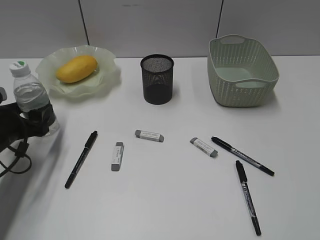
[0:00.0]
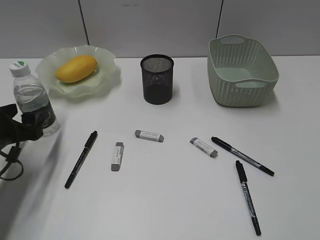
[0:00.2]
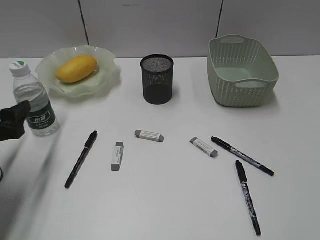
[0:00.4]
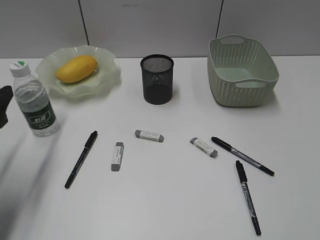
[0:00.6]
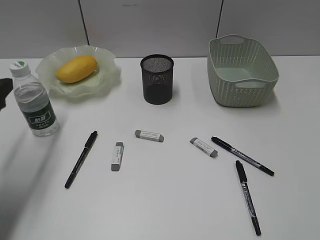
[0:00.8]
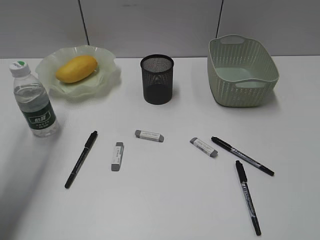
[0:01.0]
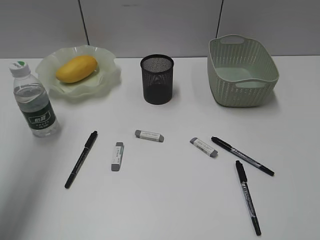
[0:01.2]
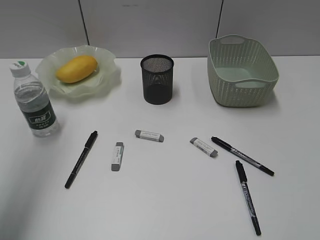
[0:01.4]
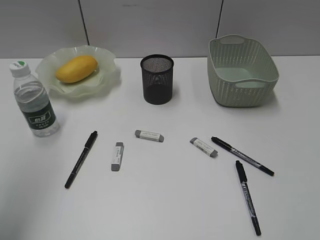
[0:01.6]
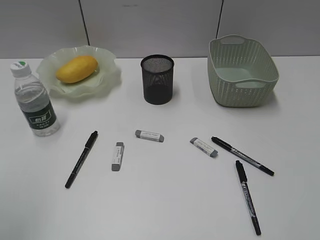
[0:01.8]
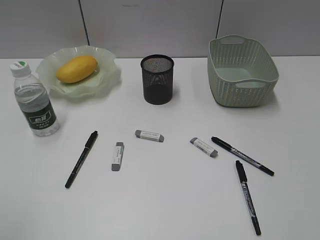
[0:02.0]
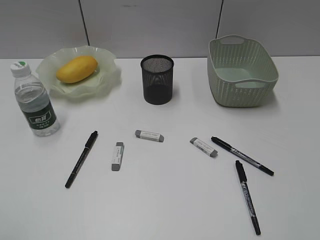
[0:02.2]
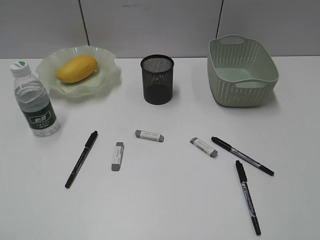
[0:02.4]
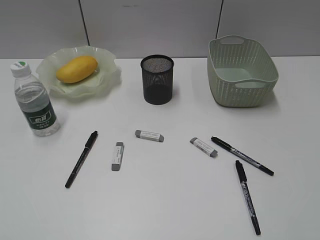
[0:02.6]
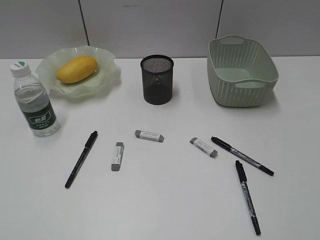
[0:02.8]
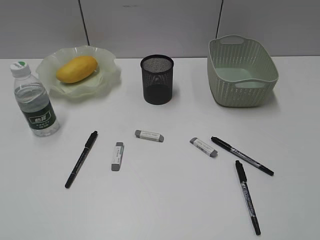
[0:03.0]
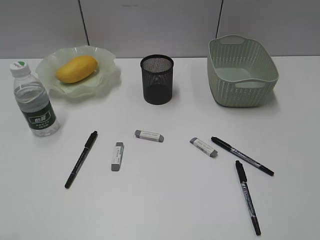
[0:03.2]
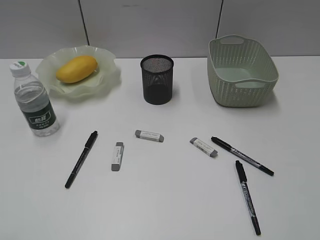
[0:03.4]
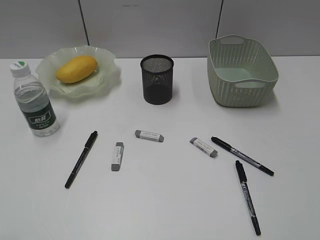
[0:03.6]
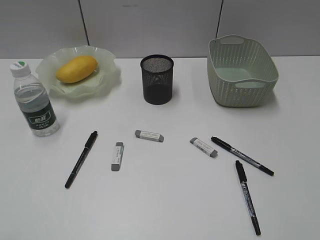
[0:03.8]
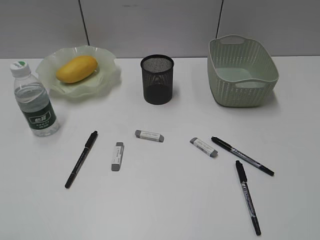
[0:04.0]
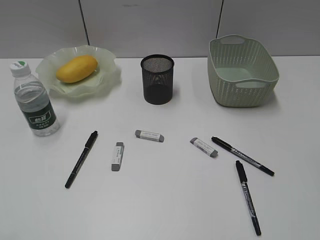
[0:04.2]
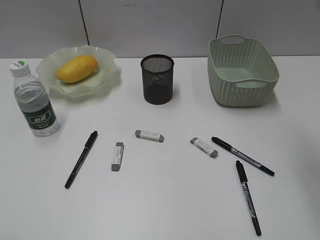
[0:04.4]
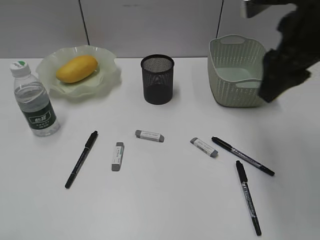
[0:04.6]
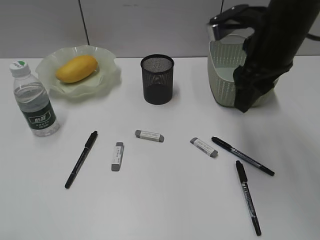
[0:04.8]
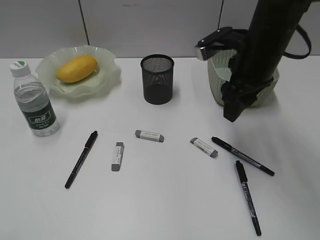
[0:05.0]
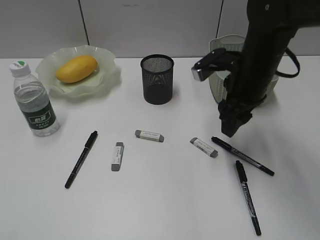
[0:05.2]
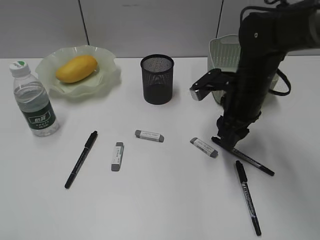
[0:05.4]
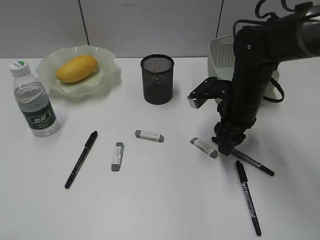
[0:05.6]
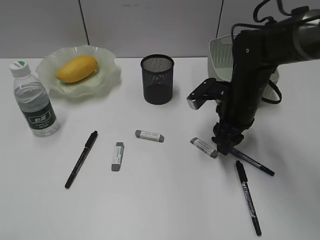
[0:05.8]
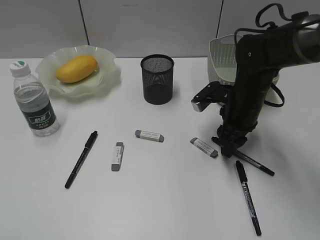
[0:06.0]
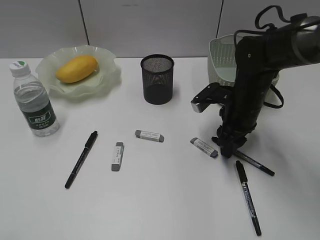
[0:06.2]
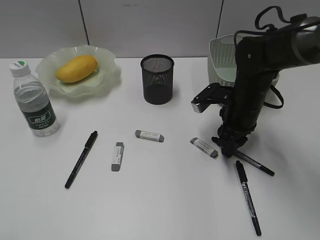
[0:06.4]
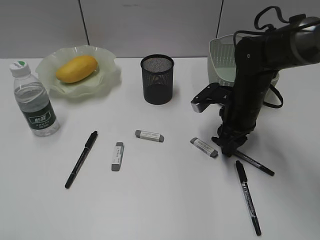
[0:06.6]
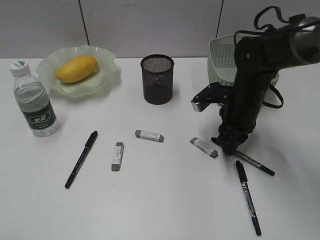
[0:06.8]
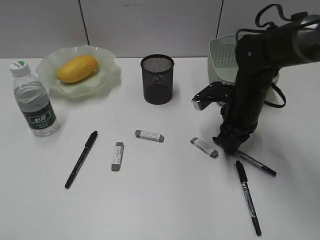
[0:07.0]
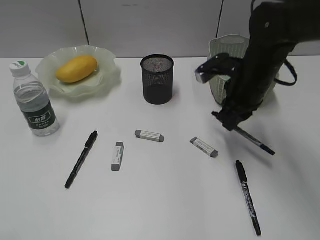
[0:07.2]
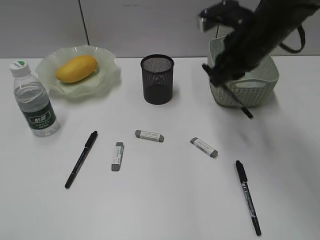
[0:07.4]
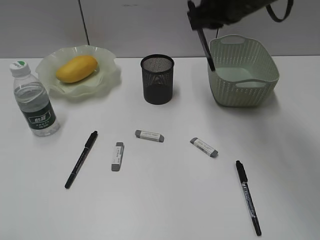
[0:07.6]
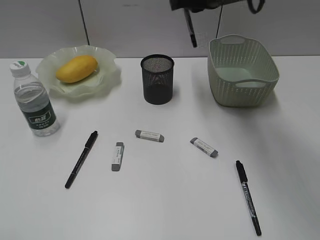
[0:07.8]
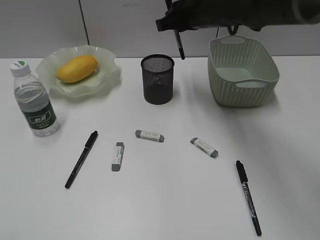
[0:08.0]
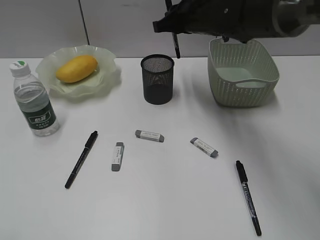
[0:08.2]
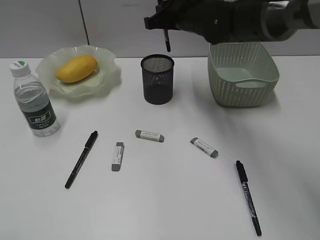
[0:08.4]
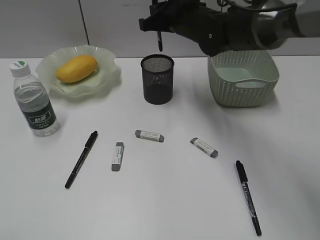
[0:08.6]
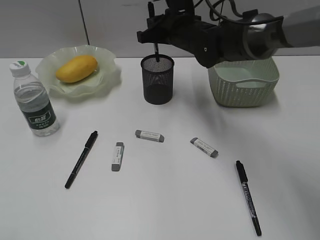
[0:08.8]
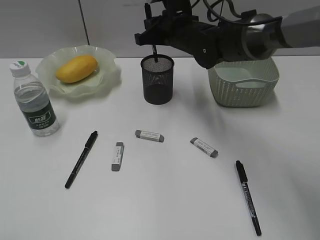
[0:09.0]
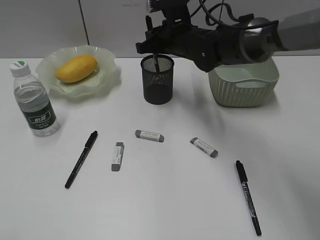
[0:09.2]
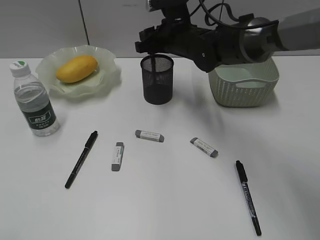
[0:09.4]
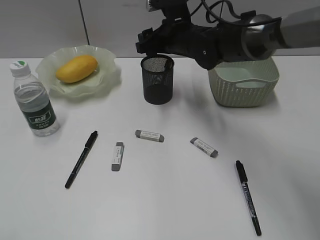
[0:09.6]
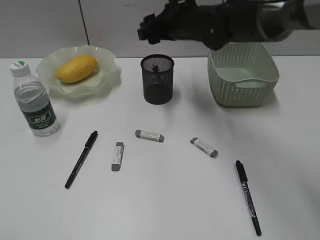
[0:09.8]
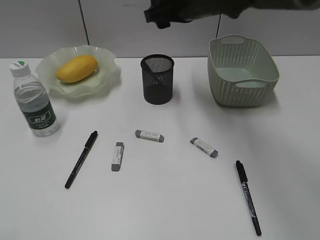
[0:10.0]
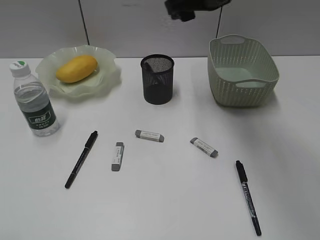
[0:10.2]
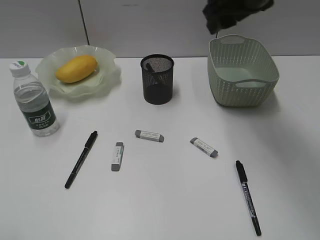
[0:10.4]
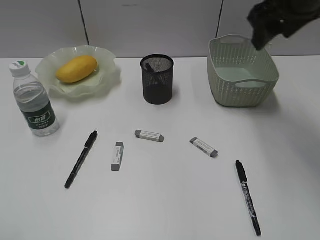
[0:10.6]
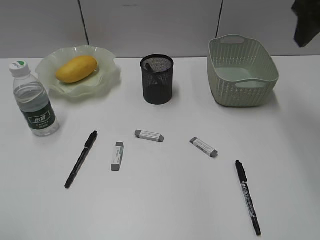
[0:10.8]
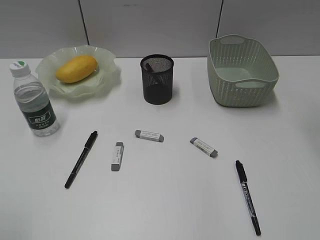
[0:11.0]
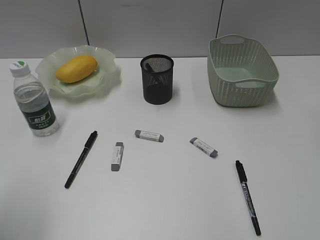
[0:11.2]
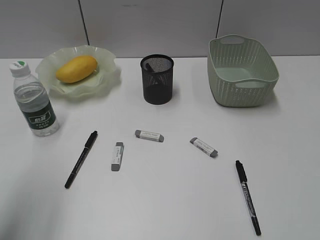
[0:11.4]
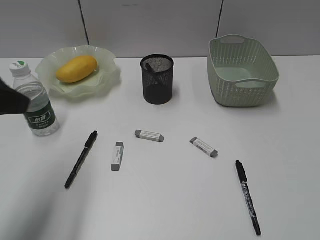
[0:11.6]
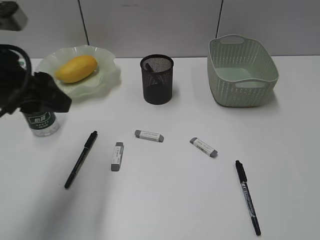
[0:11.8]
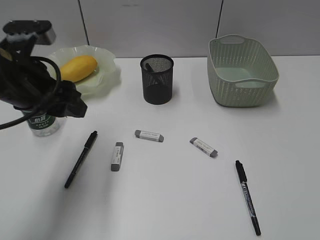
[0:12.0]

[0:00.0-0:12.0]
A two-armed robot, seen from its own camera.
Step, 0.4 to 6.8 s: Grasp the black pen with right gripper.
Step, 7.0 to 9.6 s: Place the black pen in pen holder with right gripper.
0.0 to 1.6 s: The left gripper is displaced upward by some 30 cm.
1.6 to 3.0 s: The left gripper heads backward and downward, covering approximately 25 cm.
3.0 to 4.4 s: The right gripper is displaced forward by some 20 cm.
4.4 to 6.0 s: The right gripper moves downward and forward, roughly 25 cm.
6.0 to 7.6 s: The right gripper travels upward by approximately 20 cm, and closes its fingers.
7.6 to 9.0 s: The right gripper goes roughly 15 cm downward, to the left and forward.
9.0 to 10.4 s: The right gripper moves upward, to the right and backward, roughly 20 cm, and opens its fingers.
10.4 to 12.0 s: The left gripper is displaced forward and to the right by approximately 30 cm. The right gripper shifts some 35 cm backward and to the right.

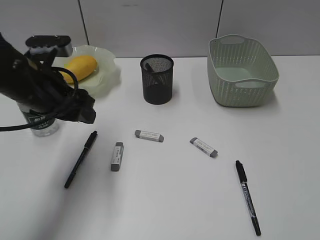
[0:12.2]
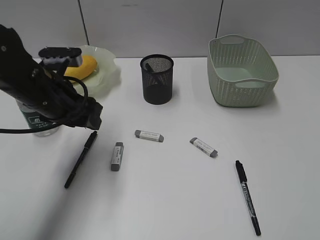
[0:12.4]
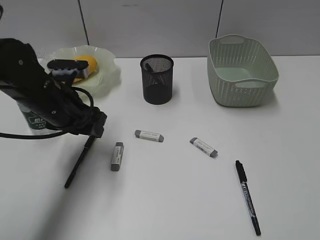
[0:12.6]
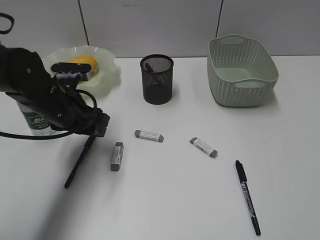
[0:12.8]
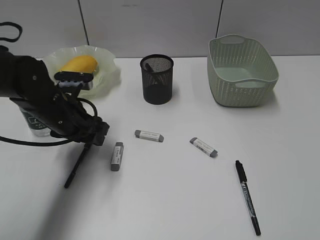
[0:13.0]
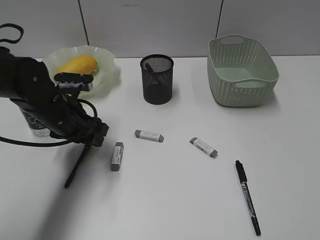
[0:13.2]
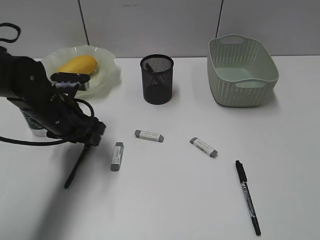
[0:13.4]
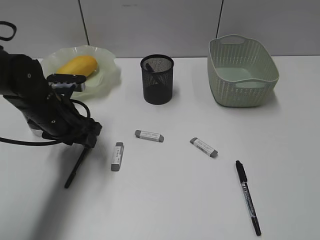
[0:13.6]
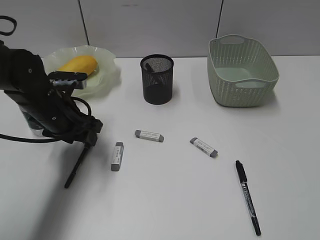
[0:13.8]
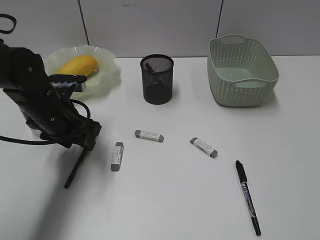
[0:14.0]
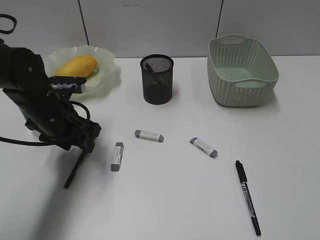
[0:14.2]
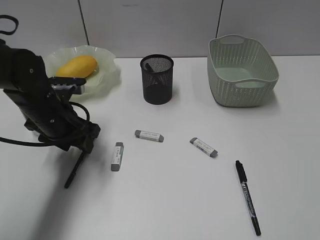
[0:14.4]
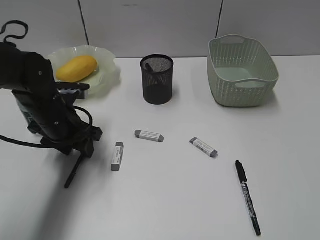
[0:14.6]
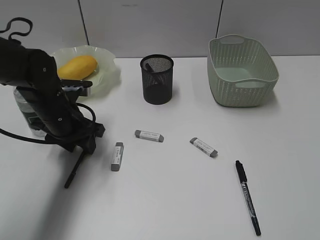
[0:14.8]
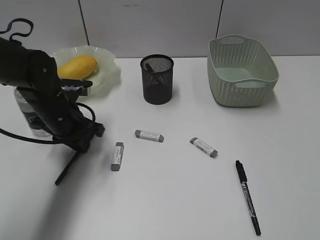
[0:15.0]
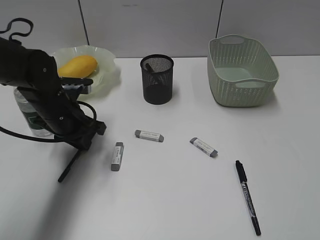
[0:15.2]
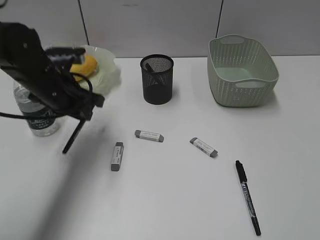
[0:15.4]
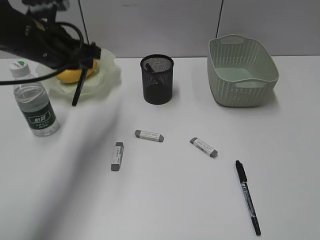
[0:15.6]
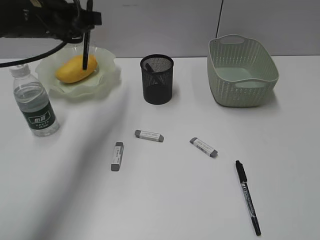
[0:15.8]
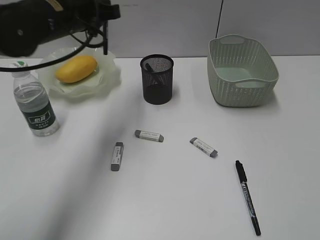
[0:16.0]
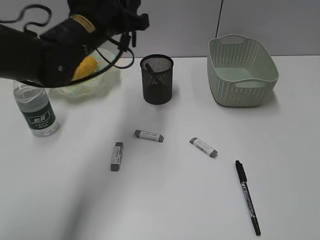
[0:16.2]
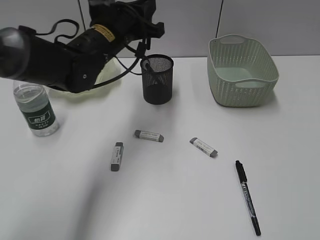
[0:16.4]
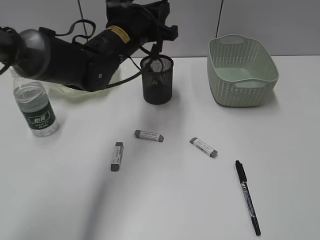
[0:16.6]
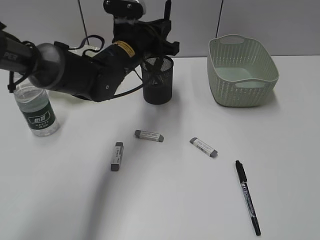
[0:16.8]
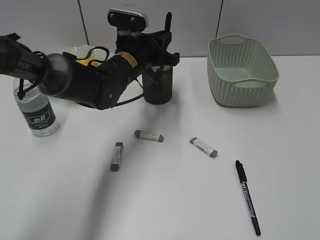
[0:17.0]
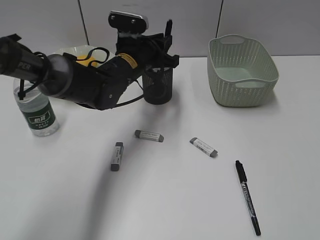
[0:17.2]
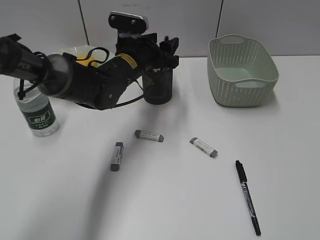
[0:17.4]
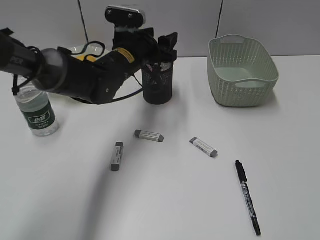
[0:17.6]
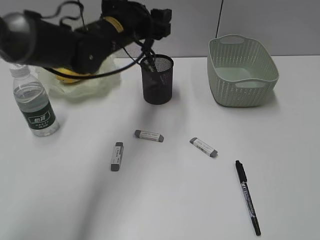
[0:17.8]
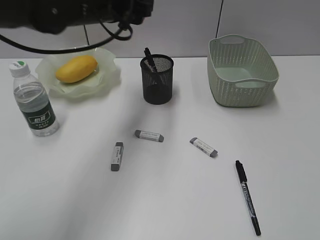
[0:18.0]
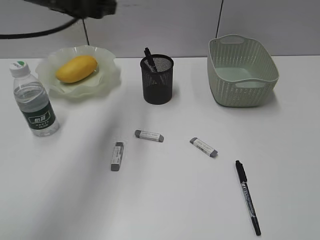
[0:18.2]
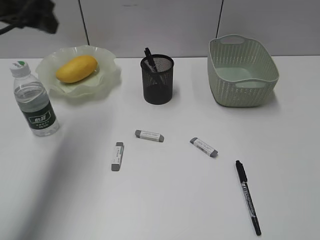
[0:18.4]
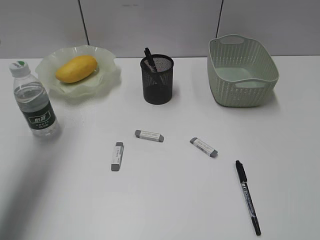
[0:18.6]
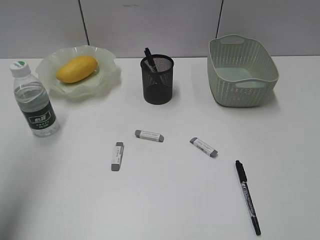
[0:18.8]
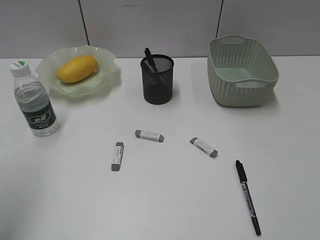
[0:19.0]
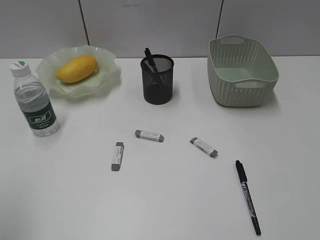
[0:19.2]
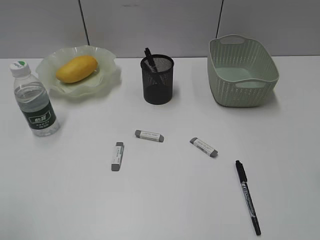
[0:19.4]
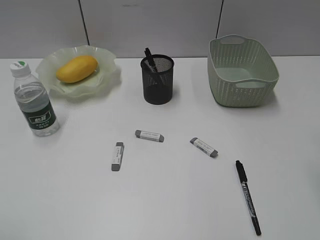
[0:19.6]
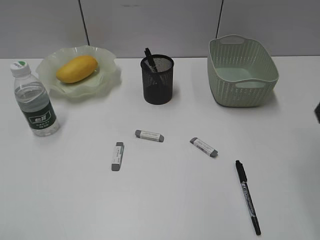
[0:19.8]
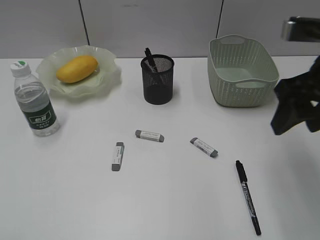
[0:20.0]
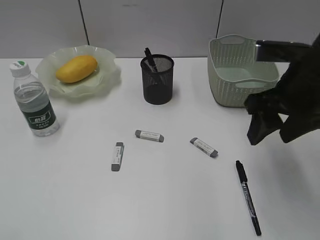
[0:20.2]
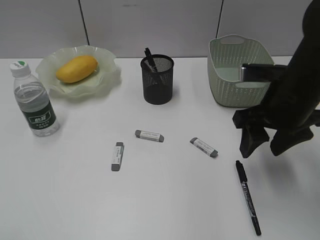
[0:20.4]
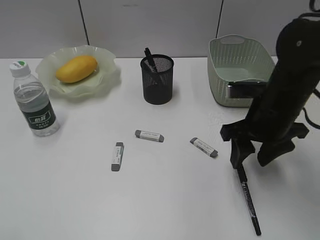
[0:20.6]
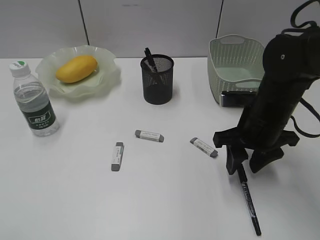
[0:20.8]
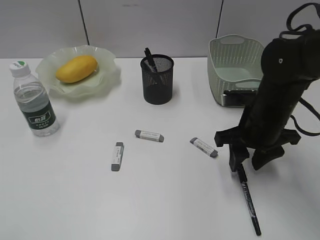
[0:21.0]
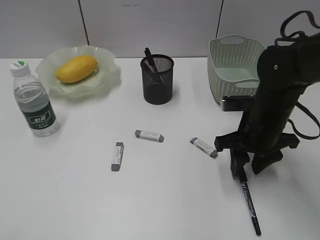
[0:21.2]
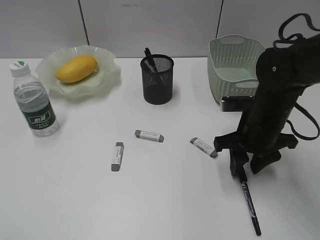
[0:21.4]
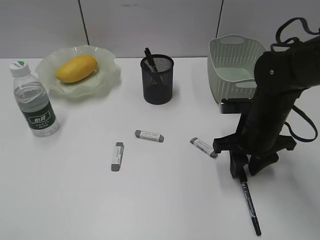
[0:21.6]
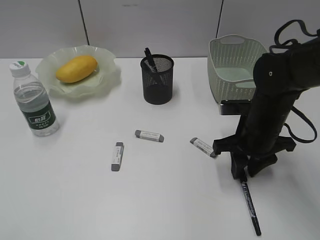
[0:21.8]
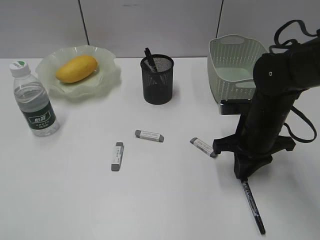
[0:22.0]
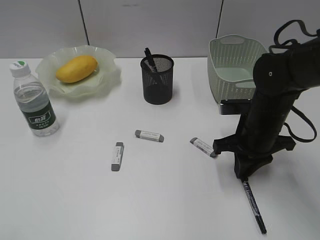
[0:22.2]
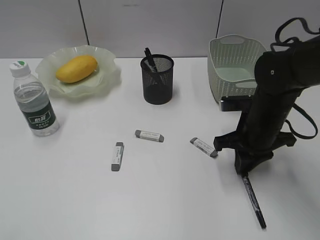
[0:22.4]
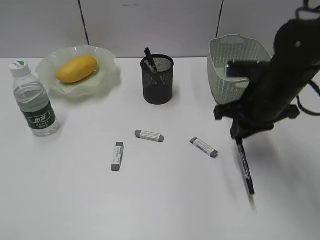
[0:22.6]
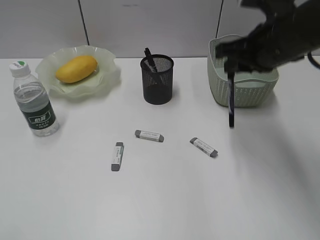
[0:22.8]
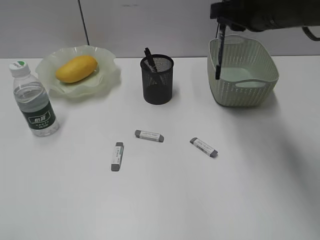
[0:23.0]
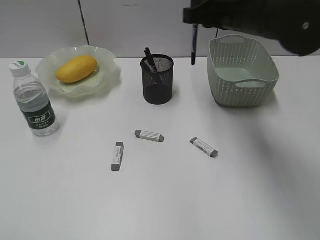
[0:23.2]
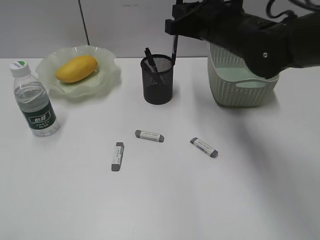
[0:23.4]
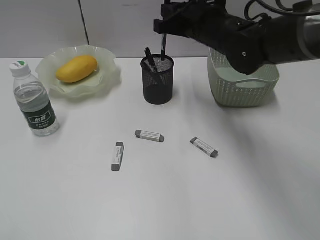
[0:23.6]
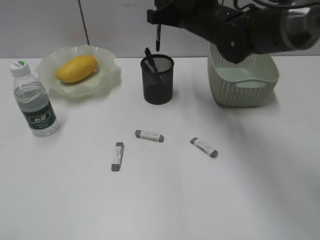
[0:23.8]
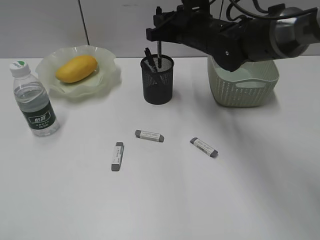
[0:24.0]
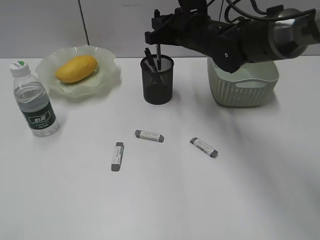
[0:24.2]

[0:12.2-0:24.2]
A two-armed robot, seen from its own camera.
Step, 12.2 to 15.0 s: Grasp the black pen with left gripper.
Step, 15.2 to 17.4 s: Place the black pen in pen holder with left gripper.
Step, 17.6 to 22.0 s: Grasp the black pen with right gripper.
12.2 to 13.8 s: The left gripper travels downward by some 5 cm.
13.8 to 15.2 s: The left gripper closes.
15.2 to 16.6 s: The left gripper travels to the right, upward and forward by roughly 15 cm.
16.6 to 18.2 s: The left gripper travels upward and to the left by about 15 cm, and opens.
18.2 to 19.8 s: The left gripper travels backward and to the left by approximately 40 cm, while the right gripper travels forward by some 25 cm.
19.8 to 21.2 s: The right gripper moves downward and to the left, roughly 20 cm.
21.2 to 22.6 s: The right gripper goes approximately 5 cm upward, and closes its fingers.
22.6 to 24.2 s: The right gripper travels forward and to the left by some 15 cm.
